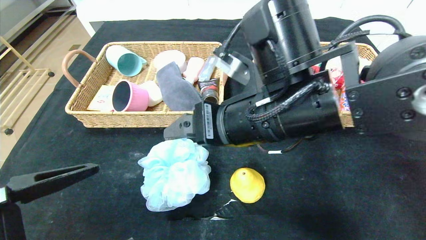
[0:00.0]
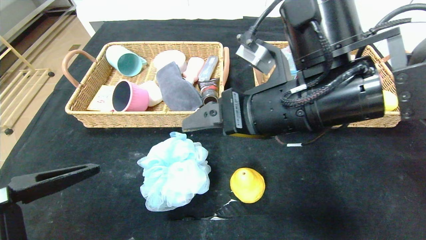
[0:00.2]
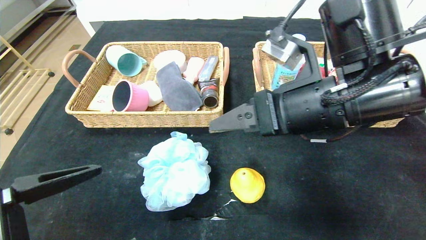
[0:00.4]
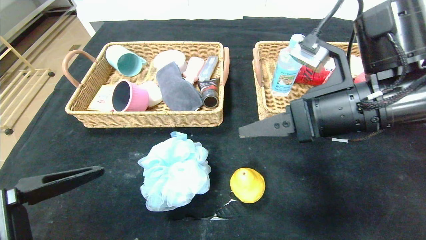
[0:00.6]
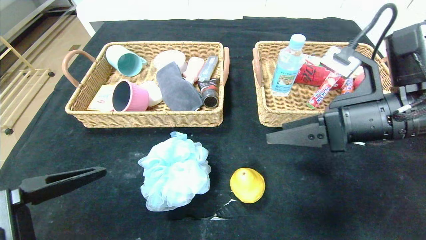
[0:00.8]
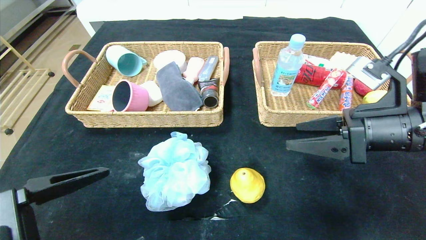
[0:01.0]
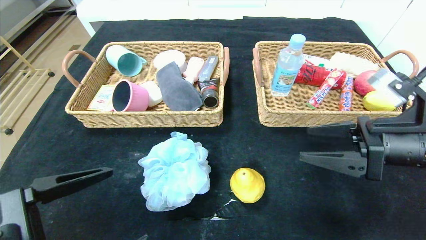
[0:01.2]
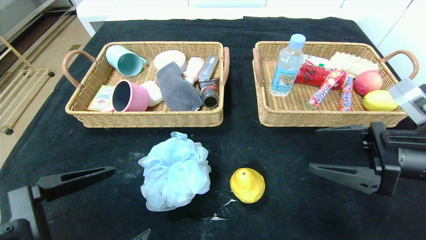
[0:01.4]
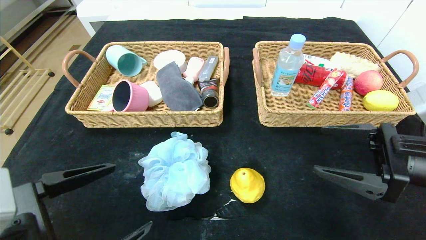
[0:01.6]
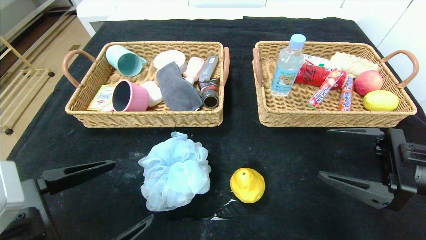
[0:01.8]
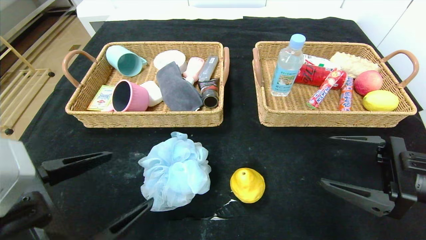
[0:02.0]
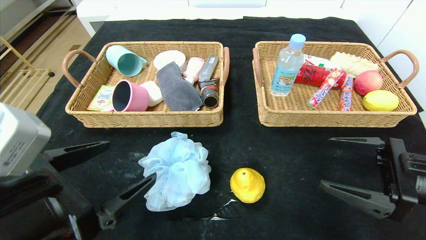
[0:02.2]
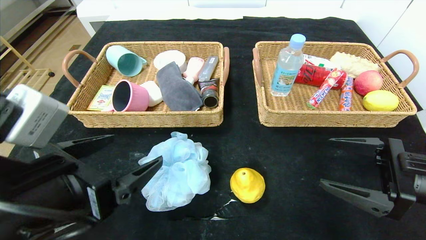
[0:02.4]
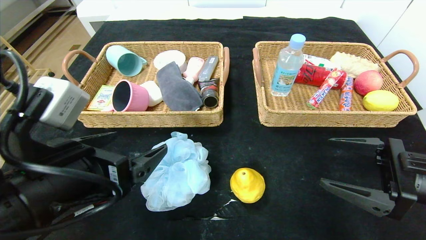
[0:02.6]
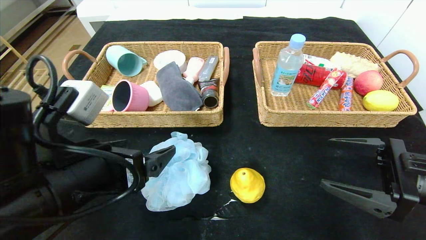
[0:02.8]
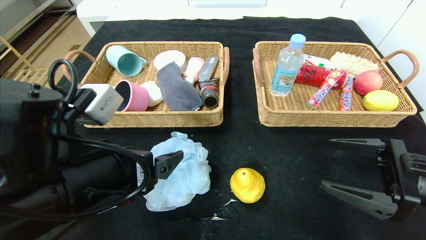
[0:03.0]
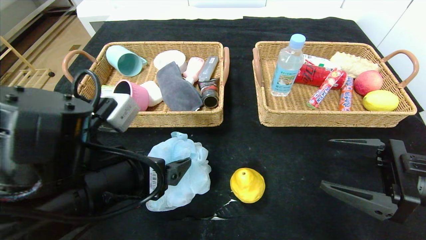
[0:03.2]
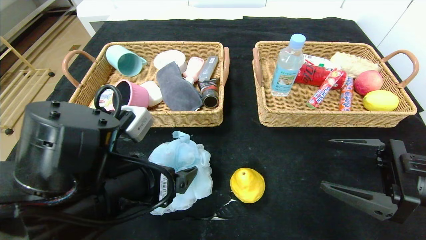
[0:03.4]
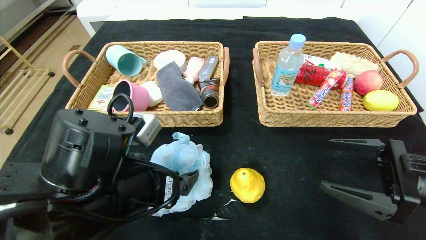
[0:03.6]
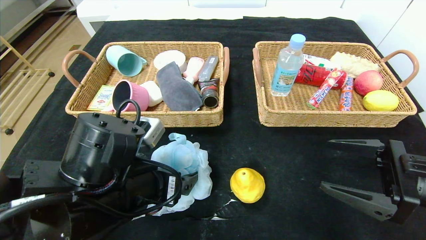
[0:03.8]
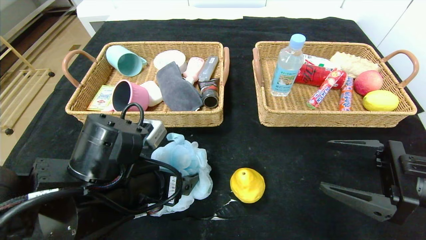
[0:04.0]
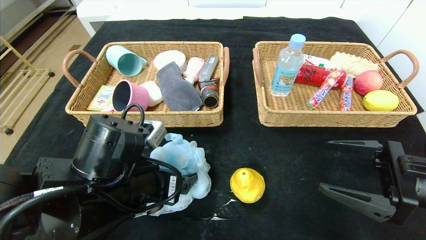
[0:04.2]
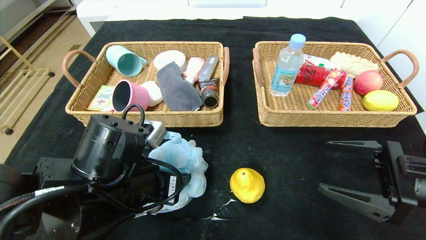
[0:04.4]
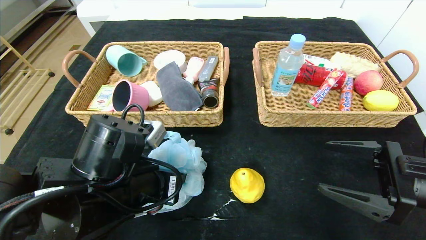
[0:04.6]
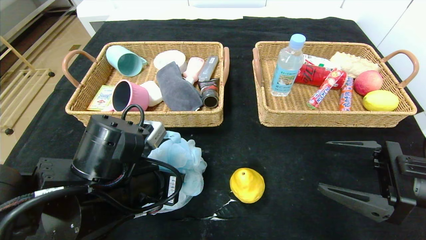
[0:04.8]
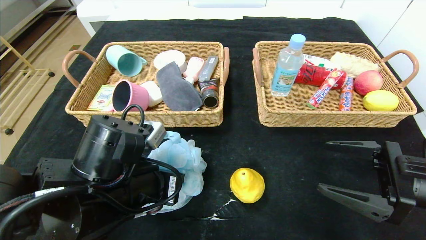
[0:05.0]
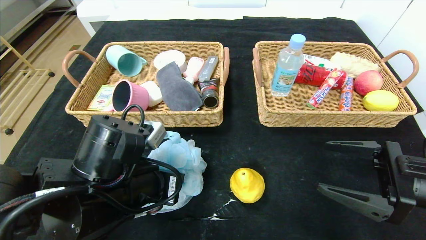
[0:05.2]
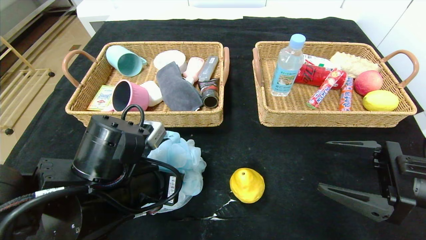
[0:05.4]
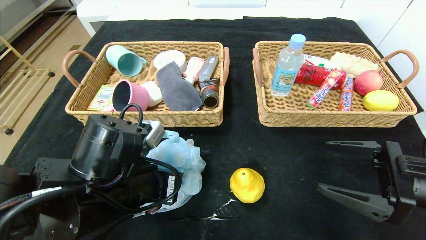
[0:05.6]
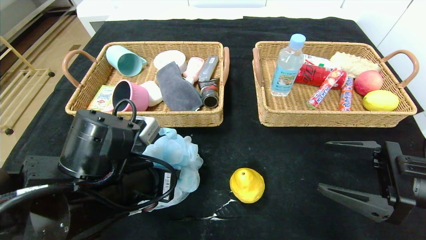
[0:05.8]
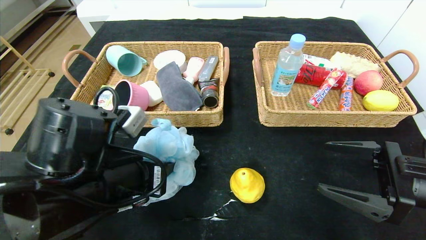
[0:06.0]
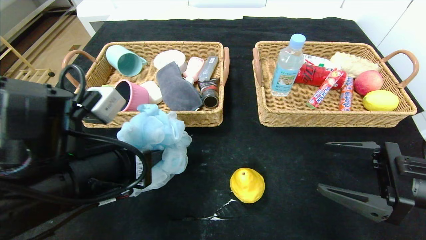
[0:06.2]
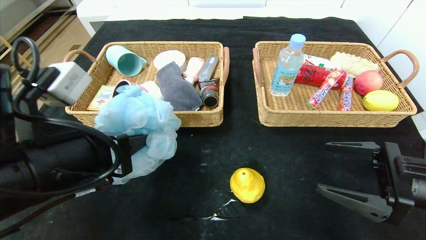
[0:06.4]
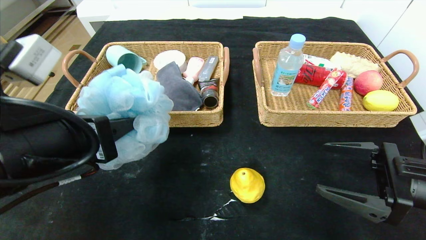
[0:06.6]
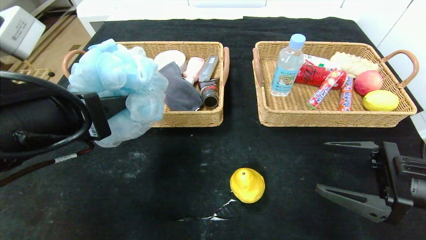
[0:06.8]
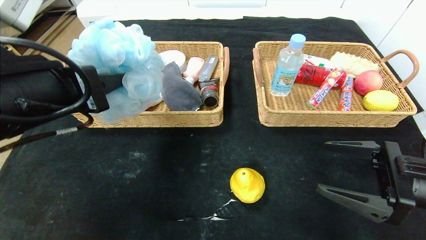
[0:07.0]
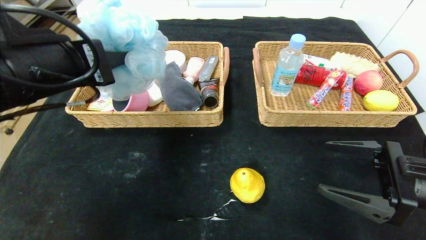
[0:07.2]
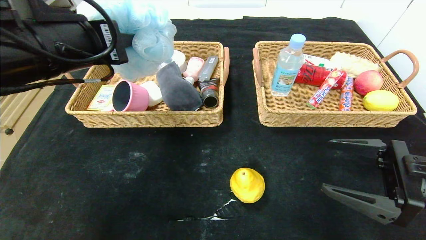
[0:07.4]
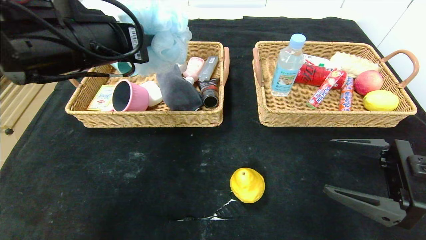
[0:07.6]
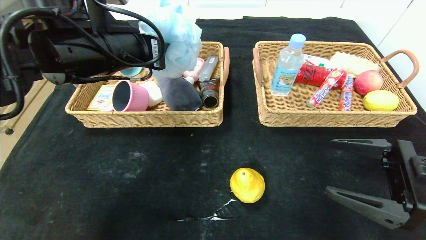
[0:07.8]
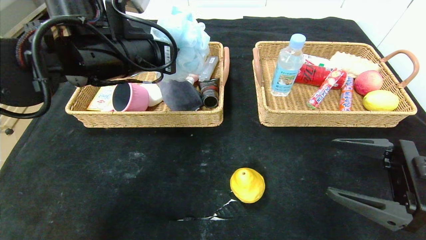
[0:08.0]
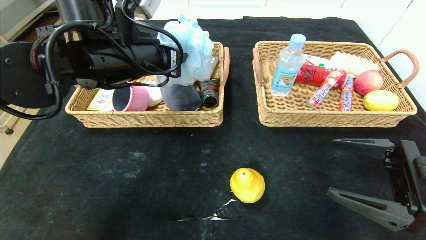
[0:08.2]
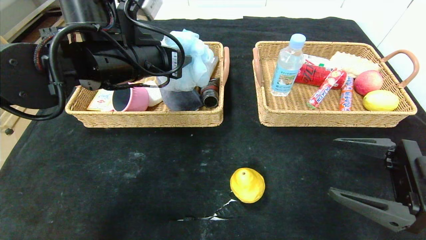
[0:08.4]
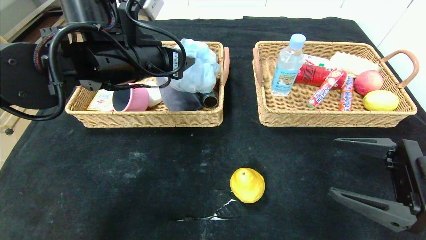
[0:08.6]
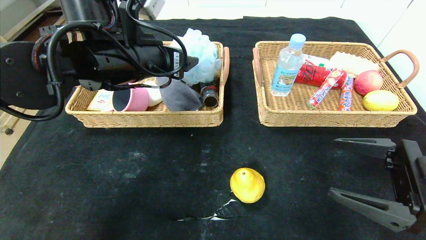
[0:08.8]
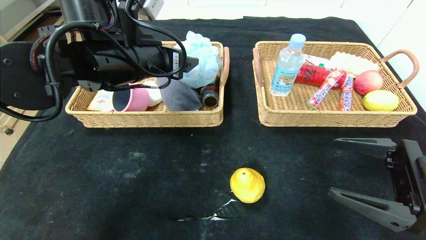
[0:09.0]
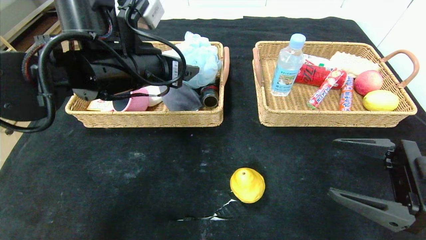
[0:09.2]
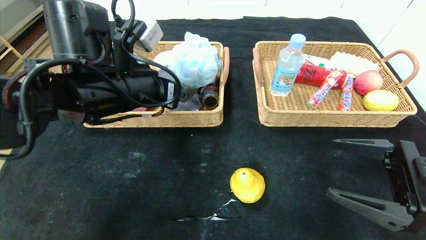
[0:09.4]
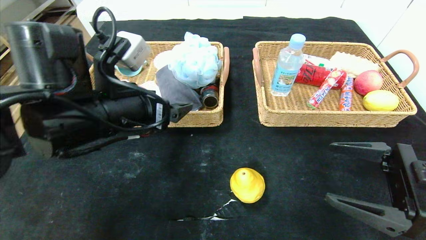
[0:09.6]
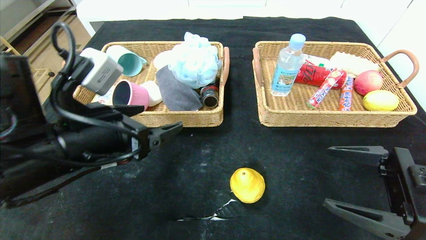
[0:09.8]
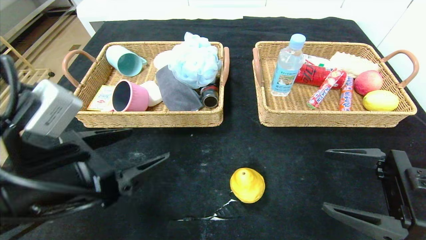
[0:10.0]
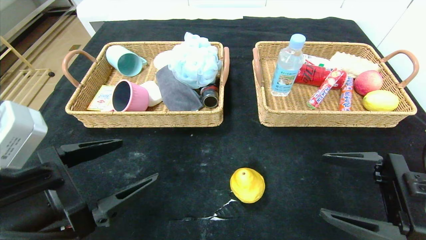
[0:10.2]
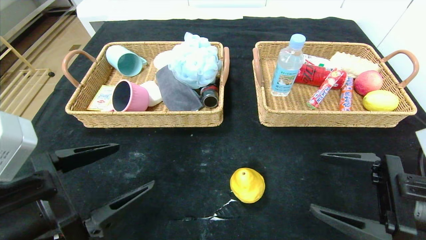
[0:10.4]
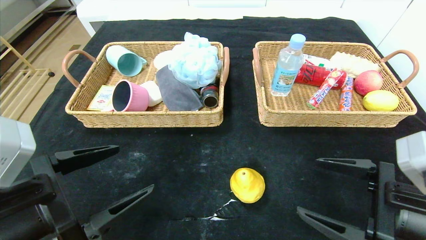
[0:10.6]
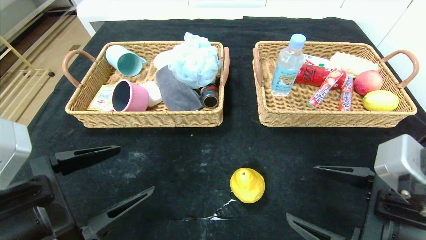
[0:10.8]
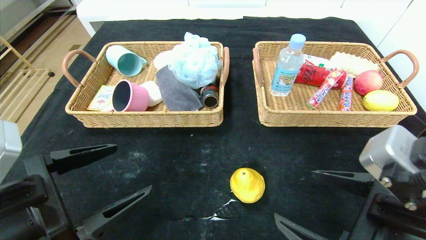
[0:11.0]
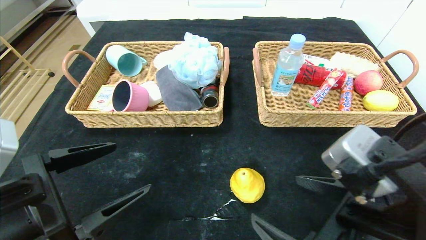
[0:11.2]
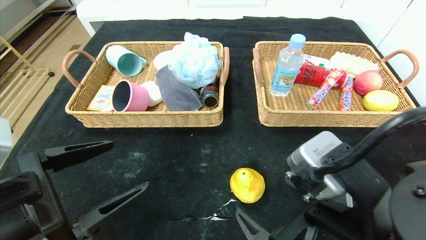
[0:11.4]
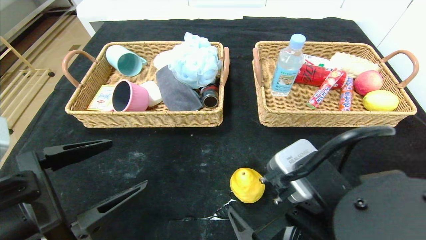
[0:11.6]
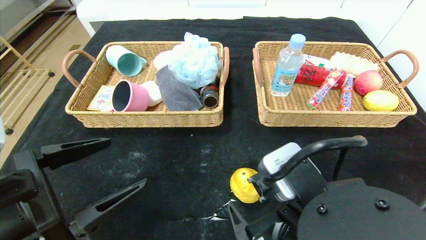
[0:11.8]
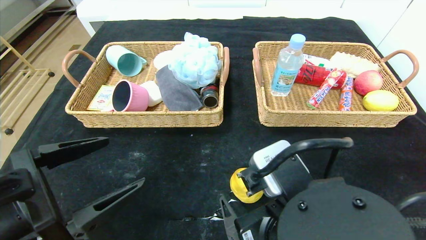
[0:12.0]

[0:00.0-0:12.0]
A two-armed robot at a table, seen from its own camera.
Step, 0:00.0 to 0:08.8: Grasp the bath ball and put it in the left basket.
0:00.0 to 0:01.6: The right gripper travels to the right by about 20 cm.
0:01.6 to 0:03.0: The left gripper shifts roughly 10 cm forward and to the right.
0:03.0 to 0:04.4: The left gripper is displaced downward by approximately 5 cm, and closes.
0:04.4 to 0:06.0: The grippers stay close to where they were, moving slightly.
0:06.0 to 0:07.6: The left gripper moves upward and forward, roughly 15 cm.
0:07.6 to 0:09.0: The left gripper shifts by about 5 cm, and opens its fingers.
0:09.0 to 0:10.4: The left gripper heads backward, downward and to the left, covering some 25 cm.
0:10.4 to 0:12.0: The right gripper is displaced to the left by some 20 cm.

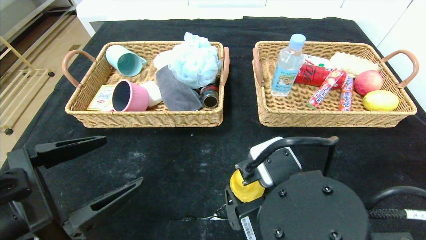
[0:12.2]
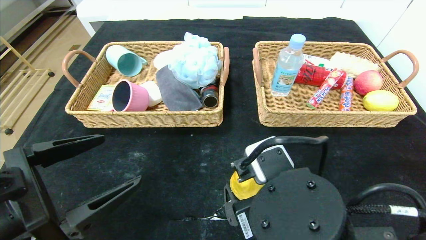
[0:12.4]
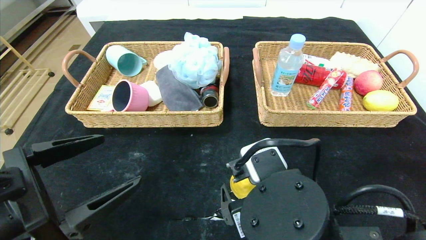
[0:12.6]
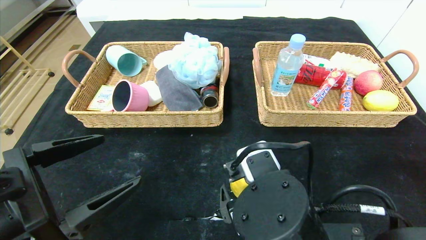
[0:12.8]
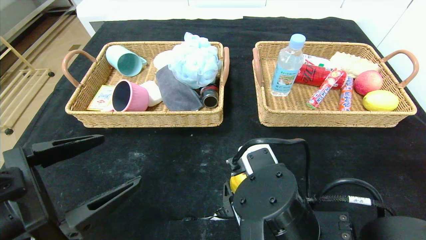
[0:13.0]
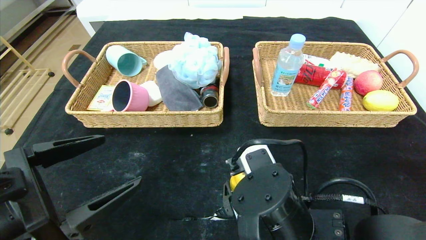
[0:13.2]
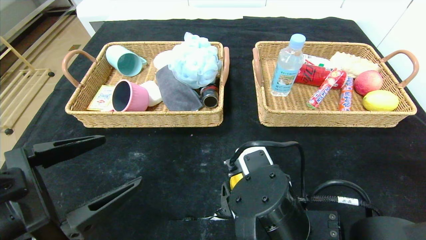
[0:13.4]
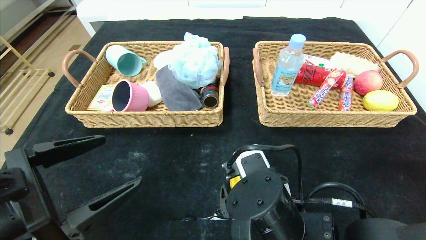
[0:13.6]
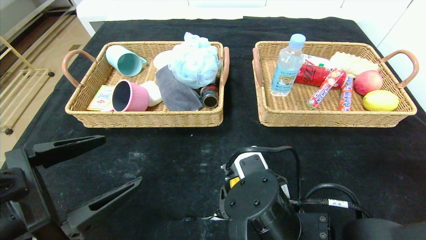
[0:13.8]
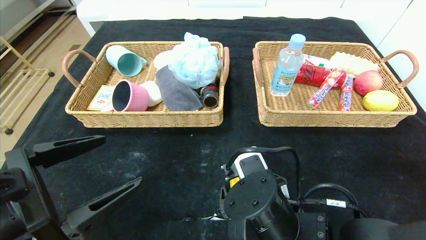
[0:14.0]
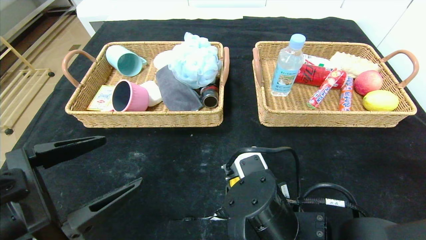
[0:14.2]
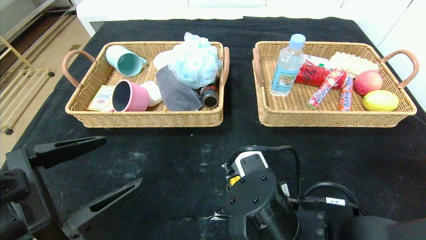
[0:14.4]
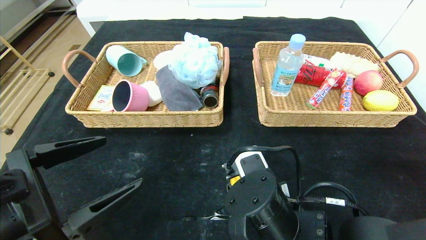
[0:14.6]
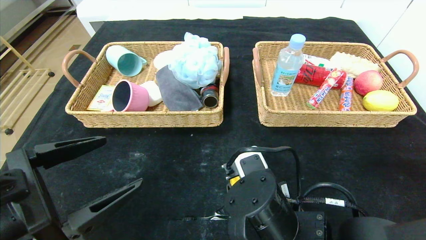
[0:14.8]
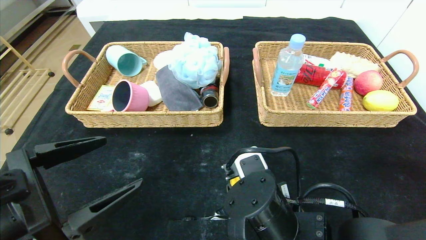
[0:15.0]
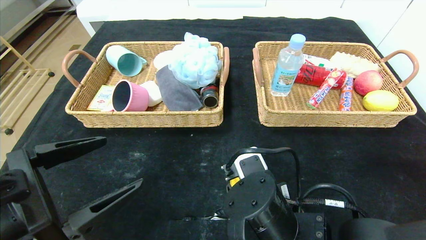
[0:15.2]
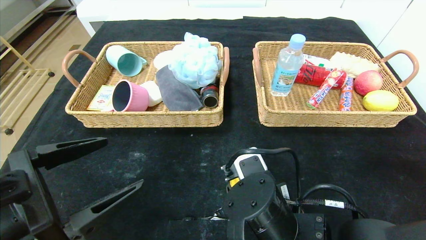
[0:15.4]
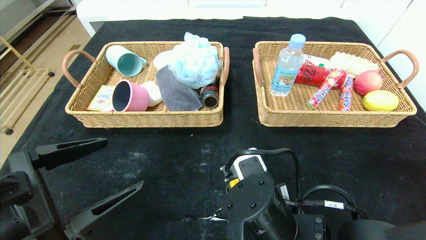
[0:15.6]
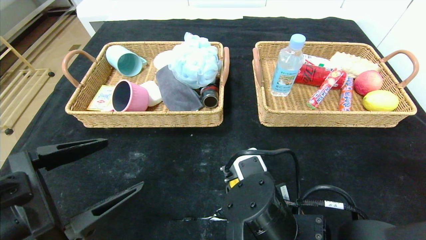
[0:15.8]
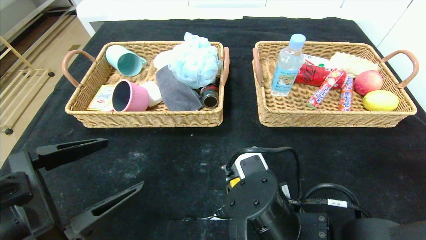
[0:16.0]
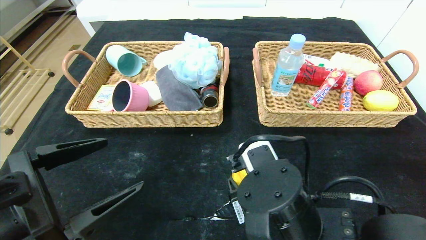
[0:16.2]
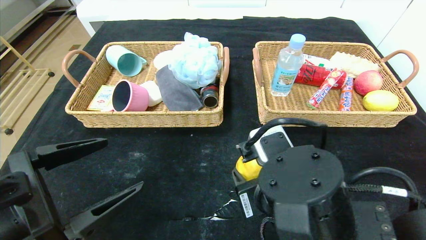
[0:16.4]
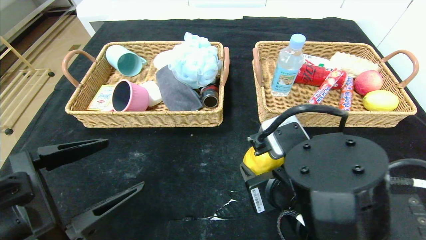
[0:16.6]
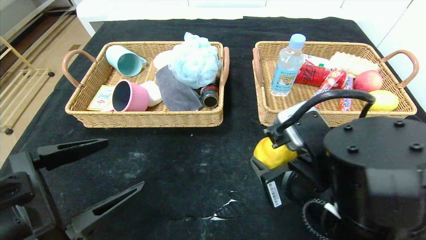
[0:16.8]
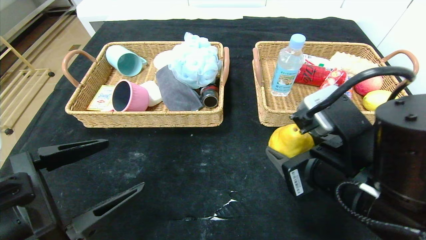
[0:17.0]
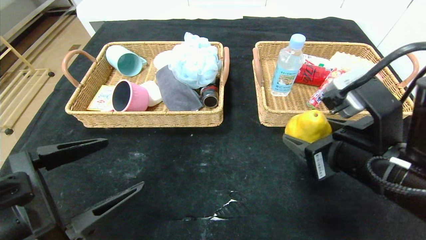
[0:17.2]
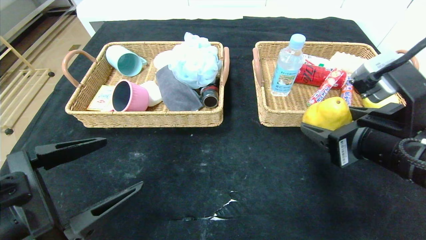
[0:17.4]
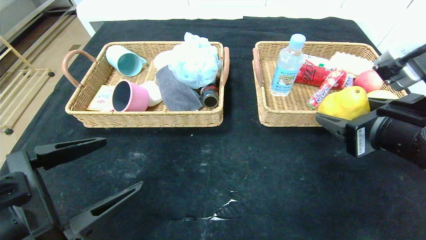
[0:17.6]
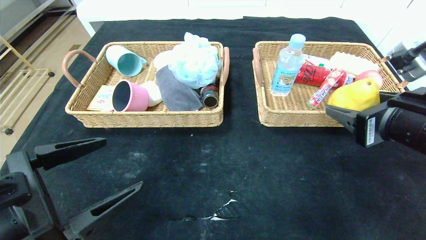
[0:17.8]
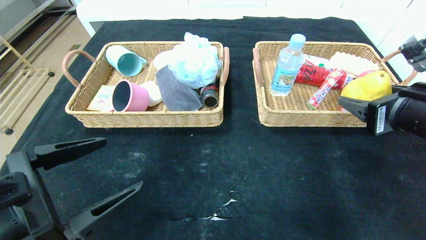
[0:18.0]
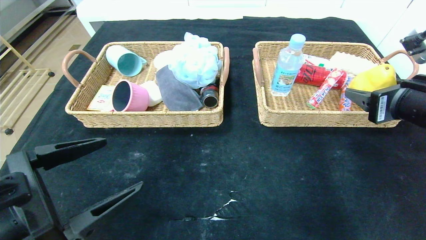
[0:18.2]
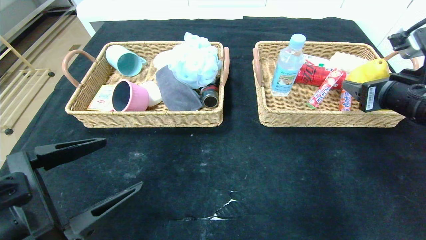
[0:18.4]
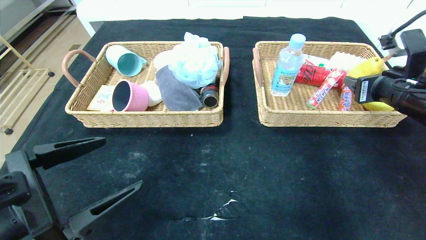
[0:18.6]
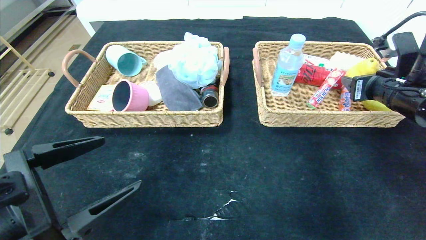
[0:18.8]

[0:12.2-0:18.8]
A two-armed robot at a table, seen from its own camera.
0:12.2 to 0:13.8: The right gripper ends up roughly 5 cm from where it was.
0:13.8 to 0:15.4: The right gripper closes its fingers.
0:15.4 to 0:17.2: The right gripper heads to the right and upward, covering approximately 15 cm.
0:17.2 to 0:18.8: The right gripper travels forward and to the right by some 20 cm.
